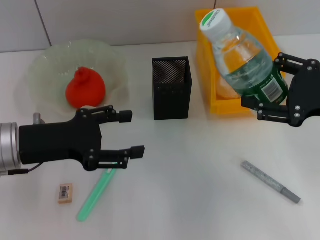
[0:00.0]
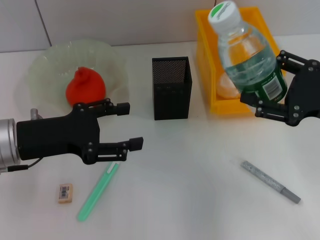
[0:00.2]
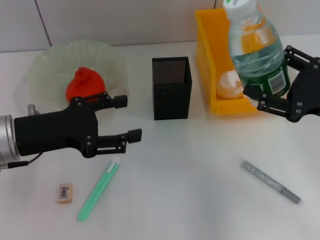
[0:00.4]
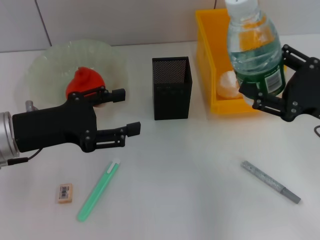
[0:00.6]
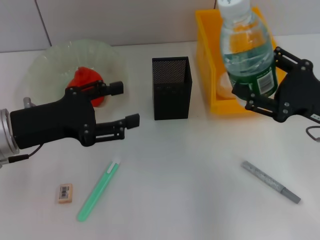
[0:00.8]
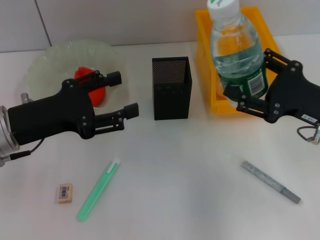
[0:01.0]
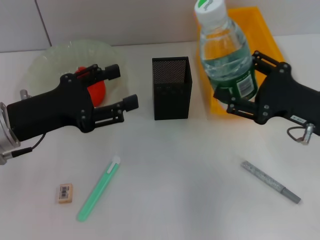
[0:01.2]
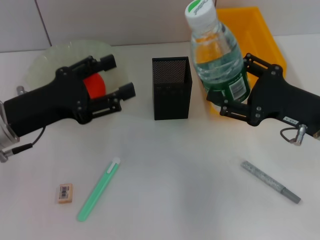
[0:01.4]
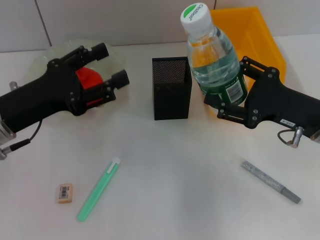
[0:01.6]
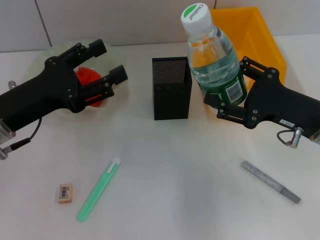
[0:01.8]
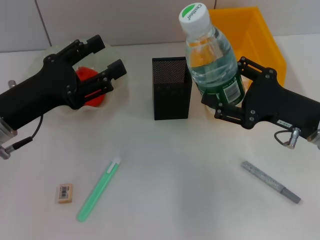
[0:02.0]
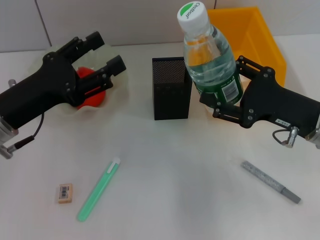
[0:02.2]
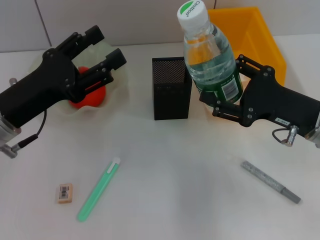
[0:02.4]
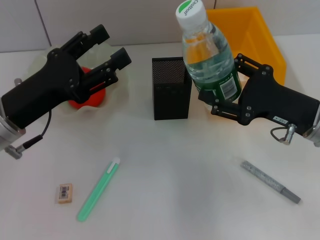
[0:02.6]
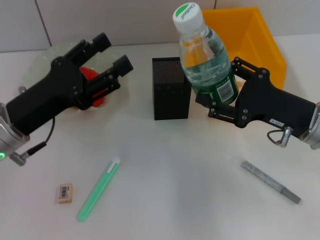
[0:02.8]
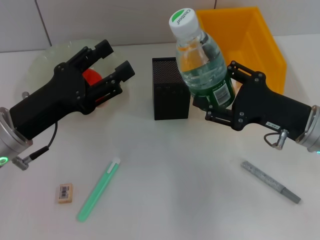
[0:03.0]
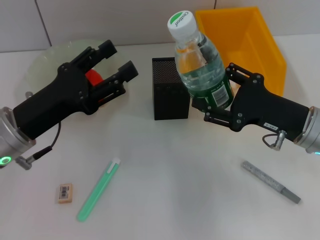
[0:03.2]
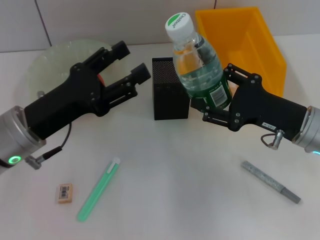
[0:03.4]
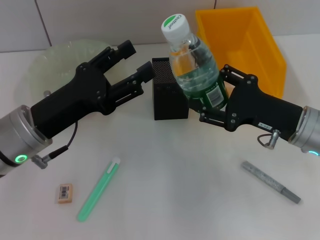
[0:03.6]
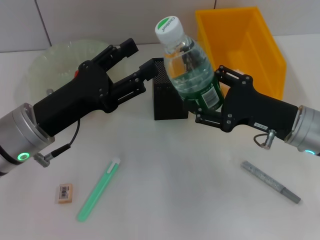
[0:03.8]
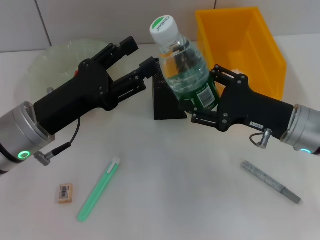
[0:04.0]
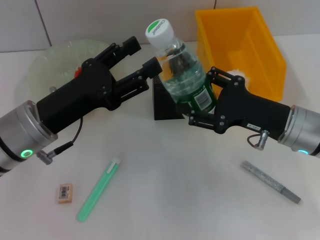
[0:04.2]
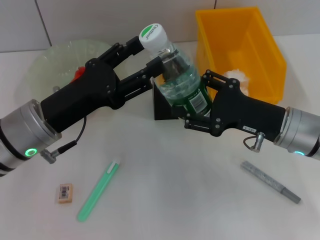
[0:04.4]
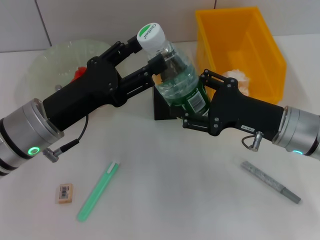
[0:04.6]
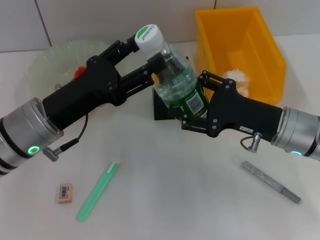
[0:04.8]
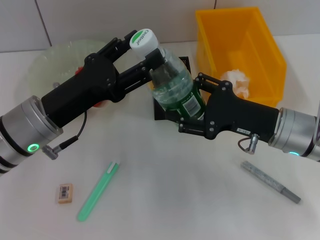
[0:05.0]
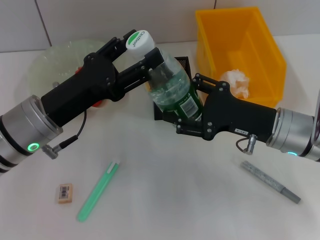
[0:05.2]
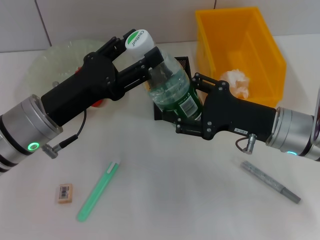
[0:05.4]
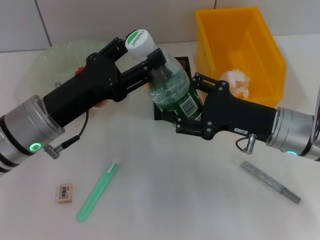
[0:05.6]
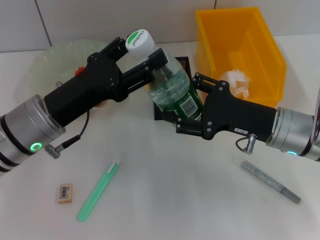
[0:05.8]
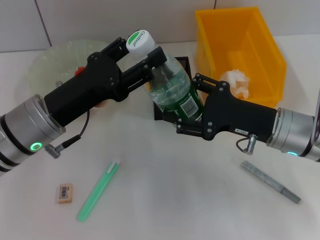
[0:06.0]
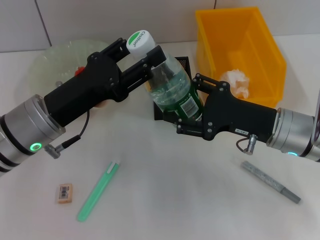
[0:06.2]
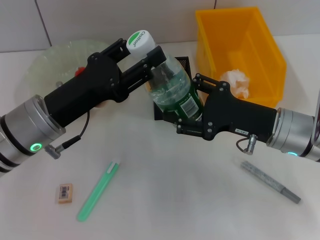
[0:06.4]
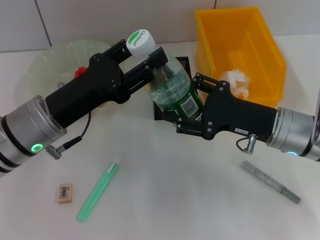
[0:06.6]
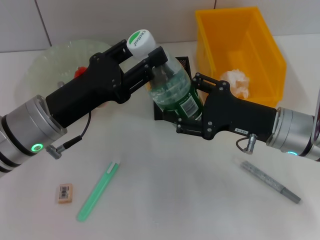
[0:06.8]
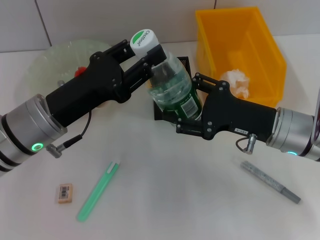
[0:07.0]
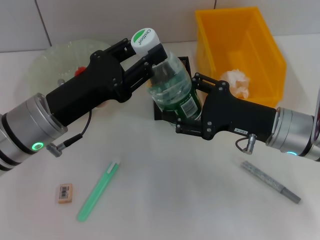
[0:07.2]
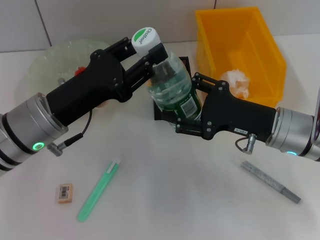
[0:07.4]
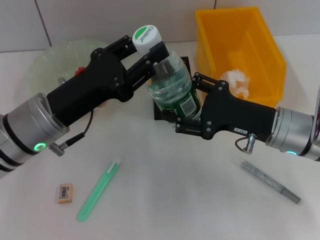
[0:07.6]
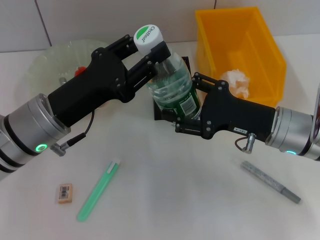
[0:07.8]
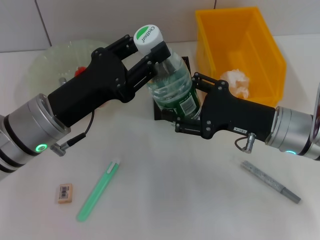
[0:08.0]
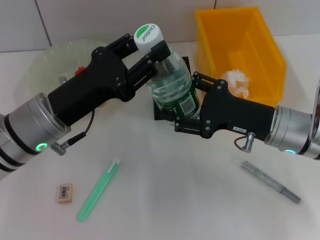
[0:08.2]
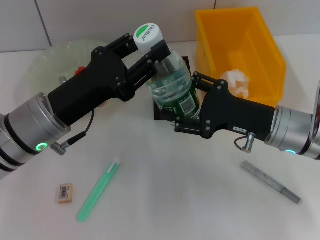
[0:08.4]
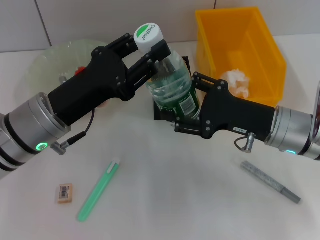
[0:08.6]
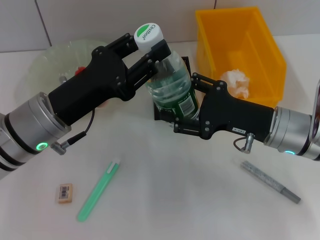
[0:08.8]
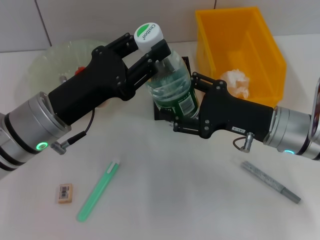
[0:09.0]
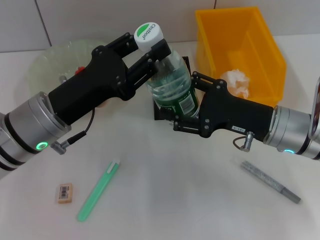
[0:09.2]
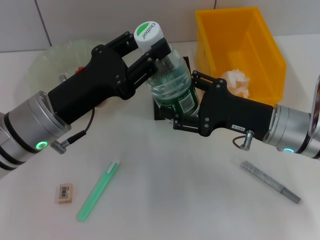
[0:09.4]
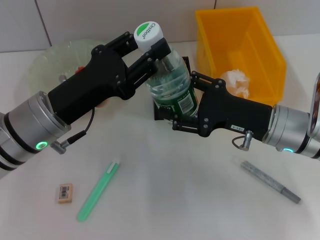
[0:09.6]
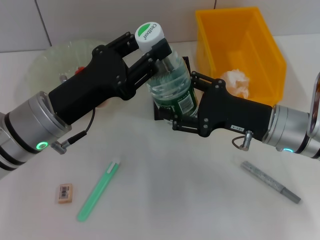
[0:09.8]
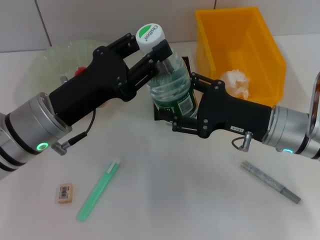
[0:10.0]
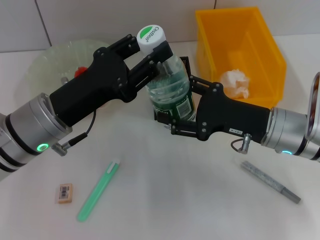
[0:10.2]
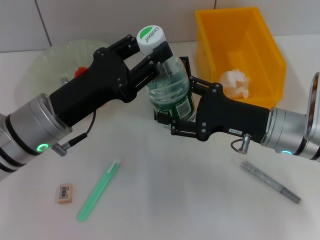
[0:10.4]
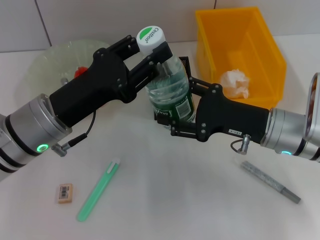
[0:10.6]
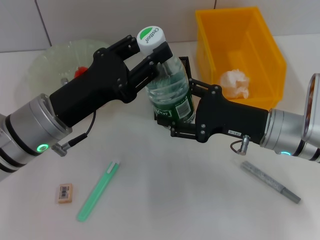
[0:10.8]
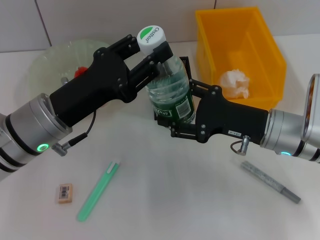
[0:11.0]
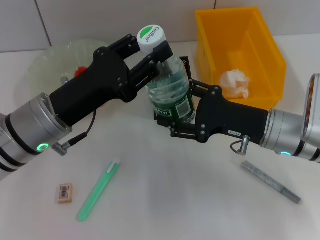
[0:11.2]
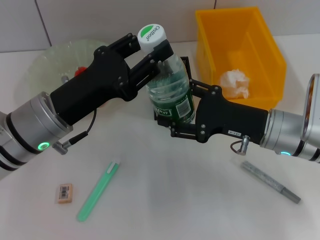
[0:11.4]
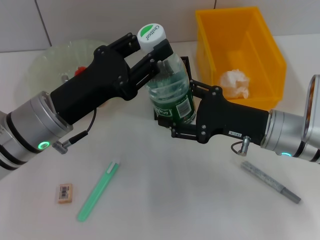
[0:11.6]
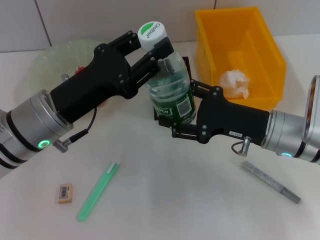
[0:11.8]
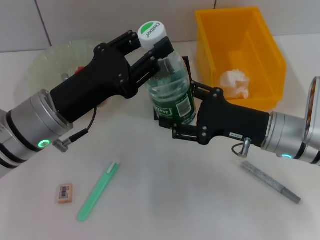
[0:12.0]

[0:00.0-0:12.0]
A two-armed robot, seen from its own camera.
0:00.0 to 0:01.6: The right gripper heads downward, covering some 5 cm.
0:01.6 to 0:03.0: The grippers move only a little.
0:04.4 to 0:06.0: Neither gripper changes place.
0:06.0 to 0:07.6: The left gripper closes up.
0:07.6 to 0:12.0: The two grippers keep their place.

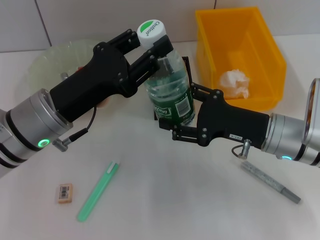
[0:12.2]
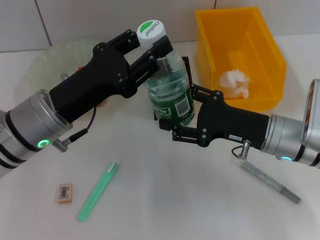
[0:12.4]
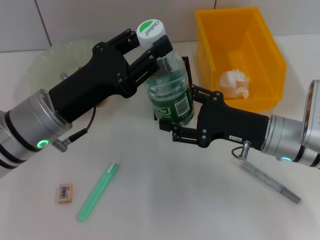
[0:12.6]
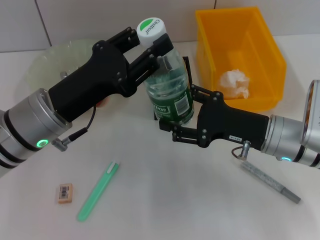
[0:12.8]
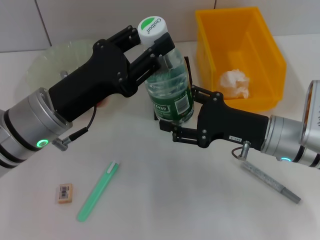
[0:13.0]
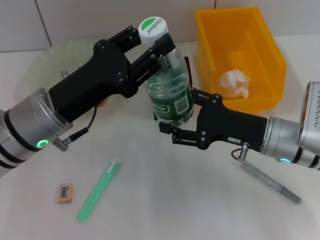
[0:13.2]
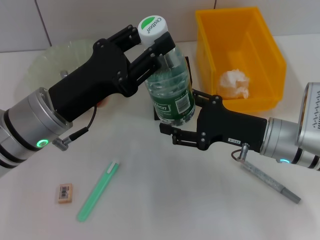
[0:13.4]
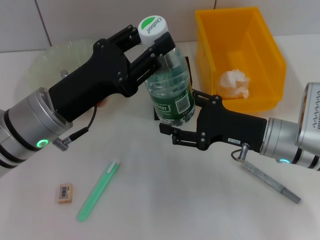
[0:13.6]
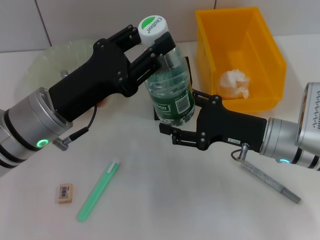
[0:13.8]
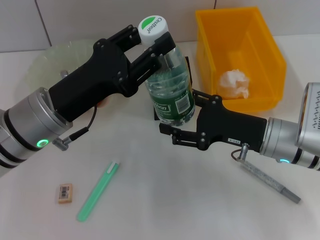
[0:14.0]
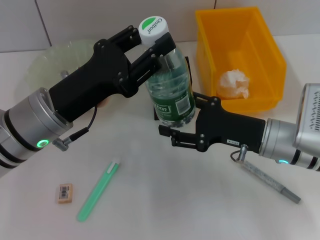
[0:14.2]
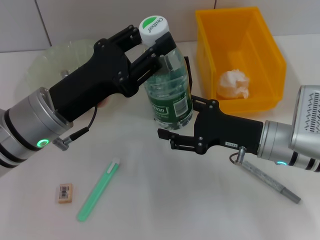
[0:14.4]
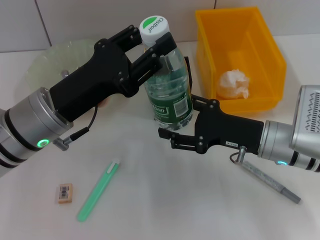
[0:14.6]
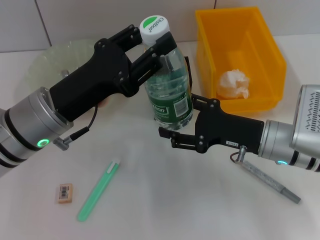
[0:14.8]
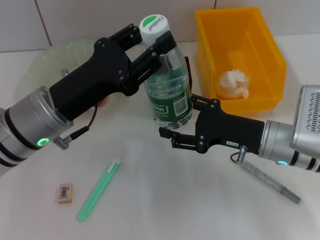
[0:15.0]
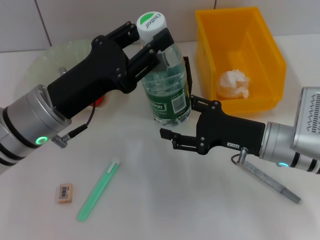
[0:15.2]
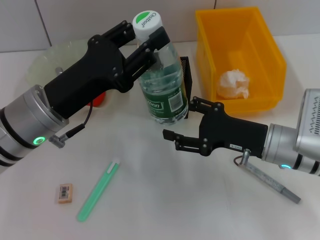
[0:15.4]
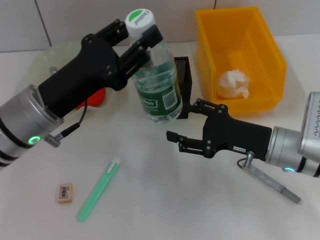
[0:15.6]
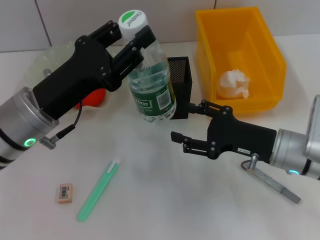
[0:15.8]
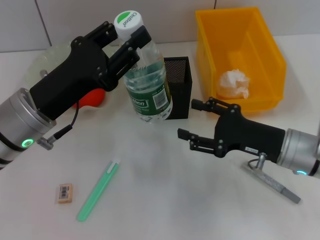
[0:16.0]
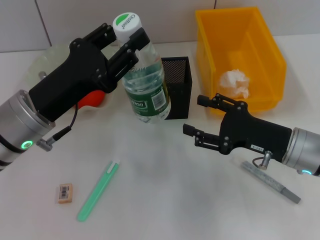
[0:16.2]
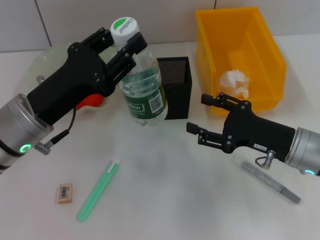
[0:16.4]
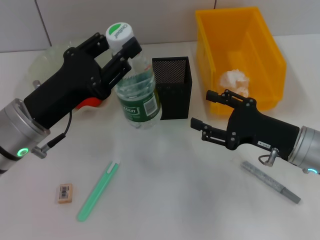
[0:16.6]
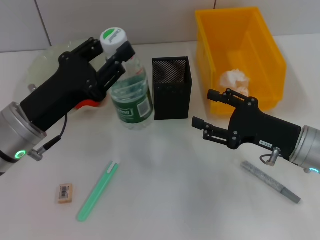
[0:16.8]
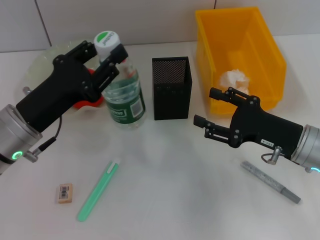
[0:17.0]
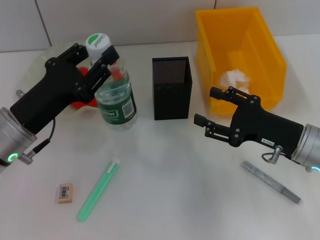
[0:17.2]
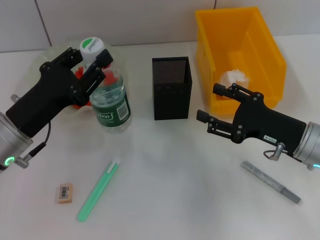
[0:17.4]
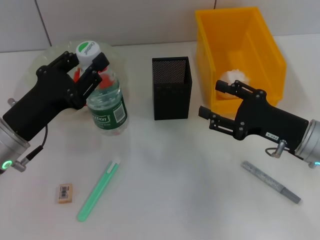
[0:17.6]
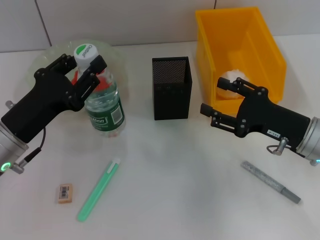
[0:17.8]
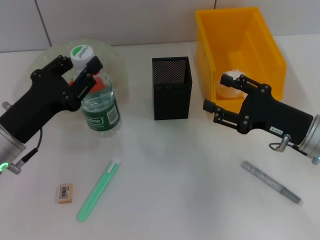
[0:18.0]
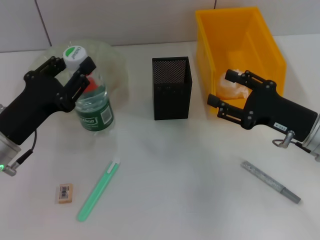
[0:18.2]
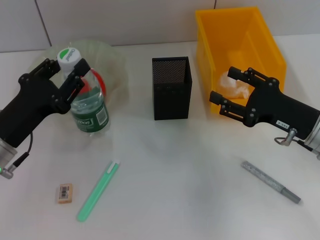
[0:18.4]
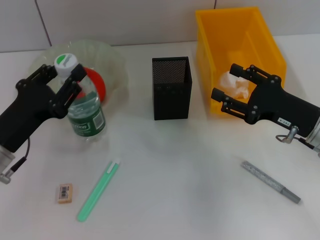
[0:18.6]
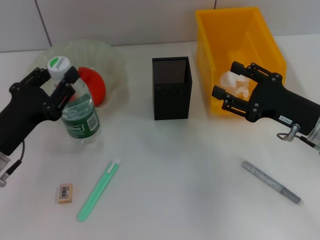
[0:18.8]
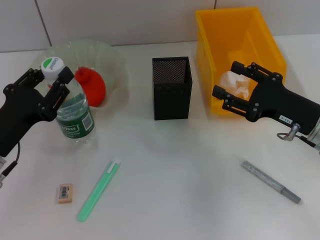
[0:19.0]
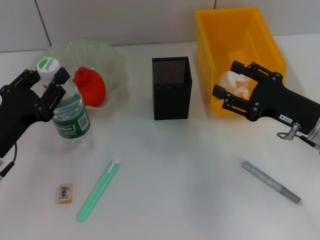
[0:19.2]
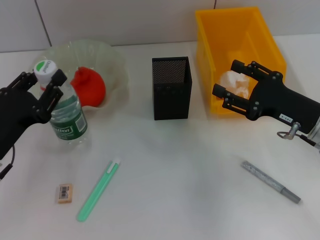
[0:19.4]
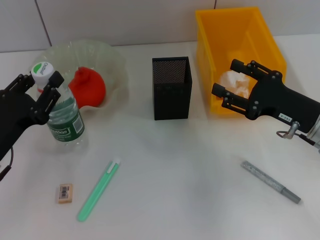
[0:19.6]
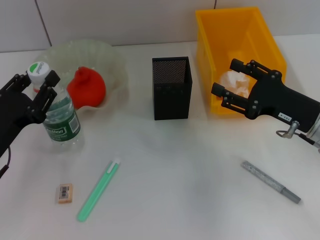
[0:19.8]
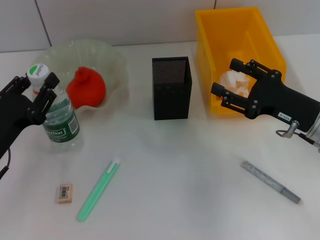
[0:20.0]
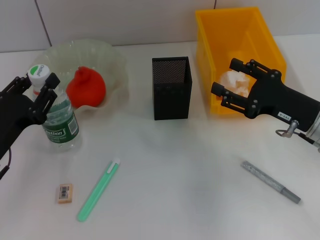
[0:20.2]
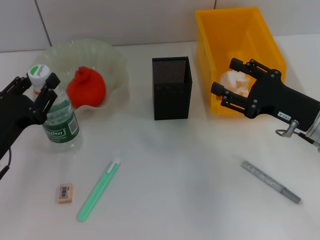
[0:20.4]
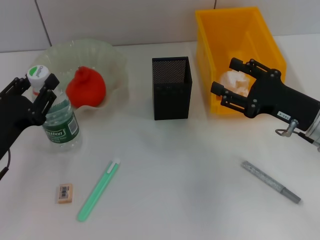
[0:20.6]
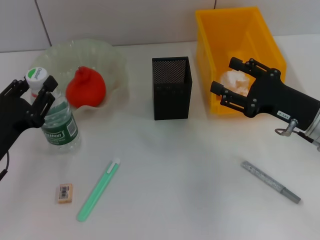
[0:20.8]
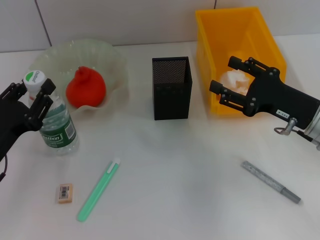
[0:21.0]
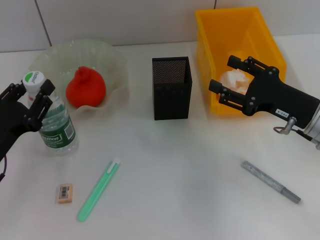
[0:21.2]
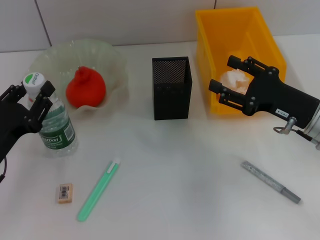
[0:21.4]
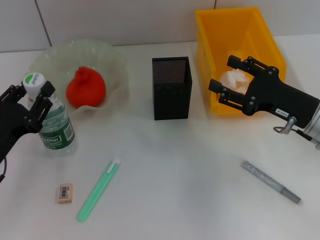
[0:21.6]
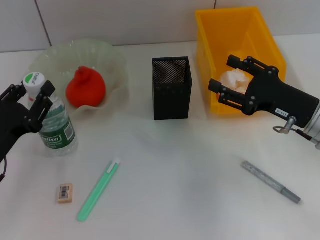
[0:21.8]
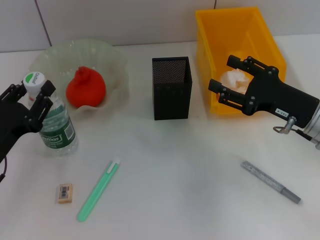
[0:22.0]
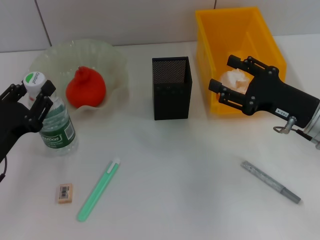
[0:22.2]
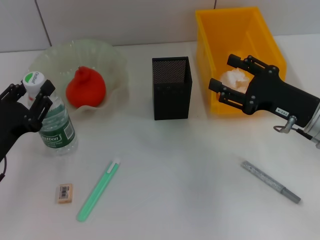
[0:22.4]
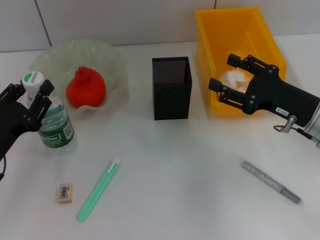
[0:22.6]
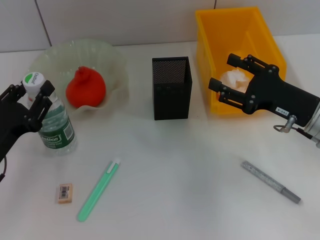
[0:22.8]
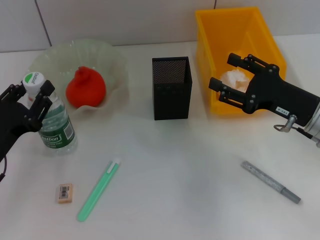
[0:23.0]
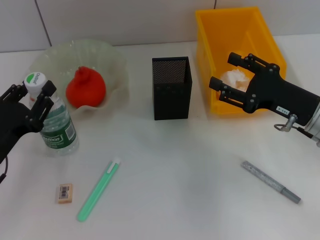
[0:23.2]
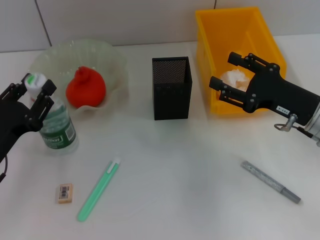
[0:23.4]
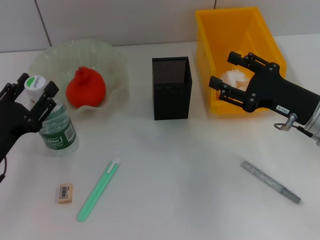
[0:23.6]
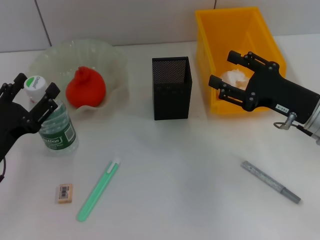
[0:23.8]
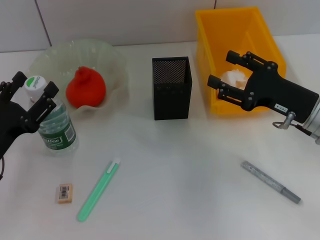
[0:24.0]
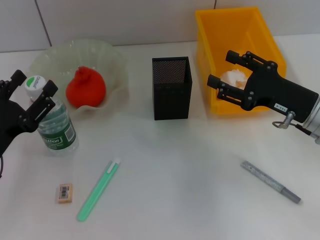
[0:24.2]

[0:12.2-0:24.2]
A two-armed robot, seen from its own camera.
Step, 0:12.2 to 0:15.2: Pass the water bottle from the right hand to the left hand.
Step, 0:15.4 to 0:23.4: Place the water bottle on the table with the left hand.
0:12.2 to 0:15.2: The two grippers keep their place.
0:16.6 to 0:18.2: The left gripper changes place by some 5 cm.
0:18.2 to 0:19.8: The grippers move only a little.
0:19.8 to 0:22.6: Neither gripper changes place.
0:22.6 to 0:24.2: Both grippers stay put.
